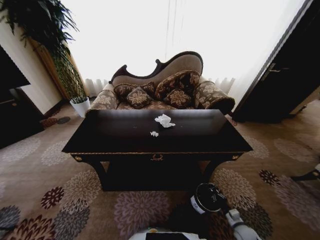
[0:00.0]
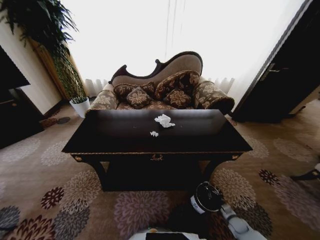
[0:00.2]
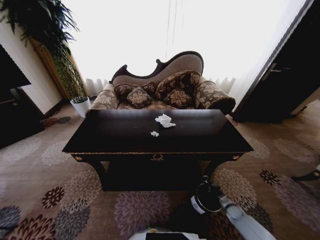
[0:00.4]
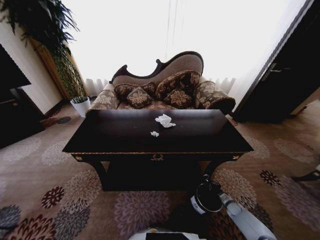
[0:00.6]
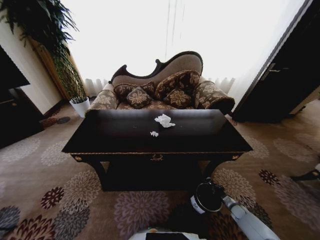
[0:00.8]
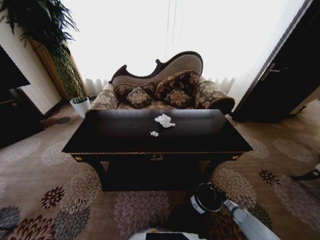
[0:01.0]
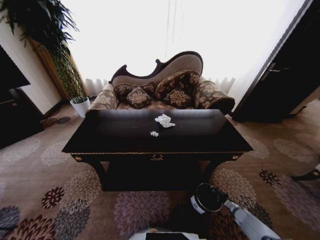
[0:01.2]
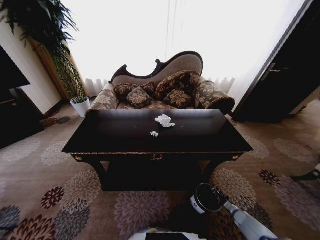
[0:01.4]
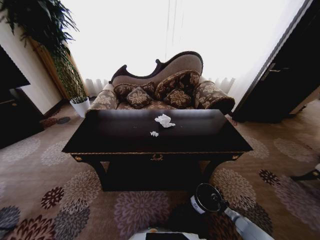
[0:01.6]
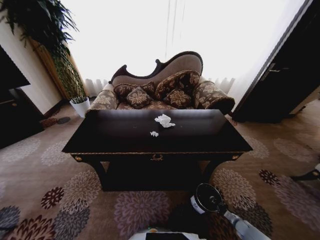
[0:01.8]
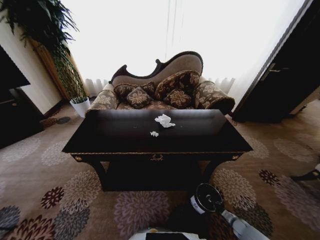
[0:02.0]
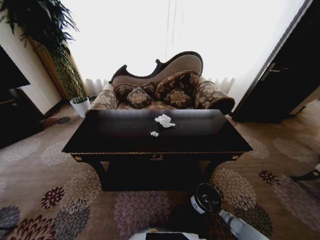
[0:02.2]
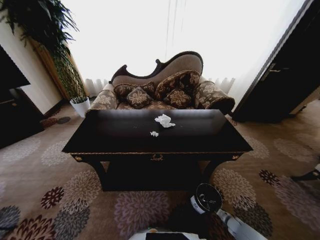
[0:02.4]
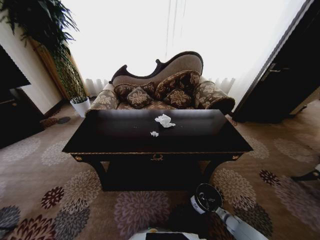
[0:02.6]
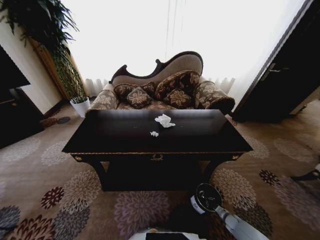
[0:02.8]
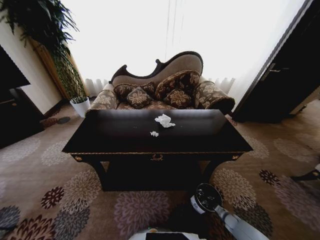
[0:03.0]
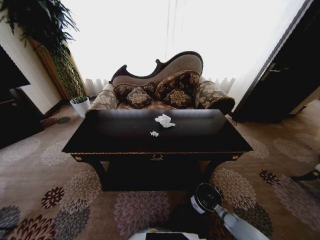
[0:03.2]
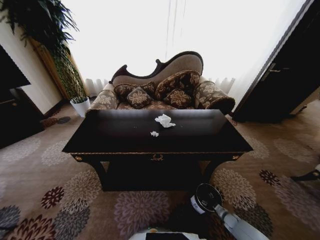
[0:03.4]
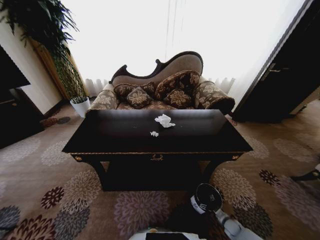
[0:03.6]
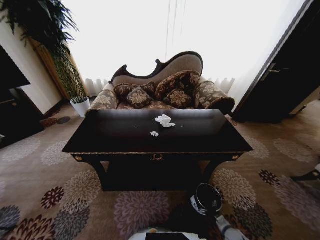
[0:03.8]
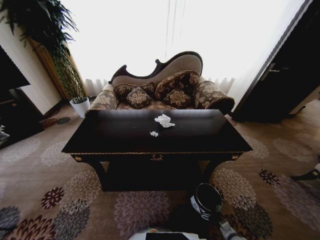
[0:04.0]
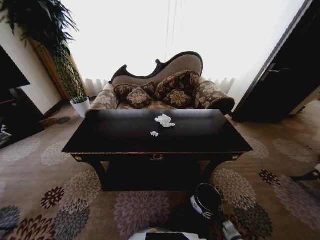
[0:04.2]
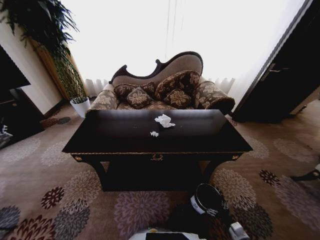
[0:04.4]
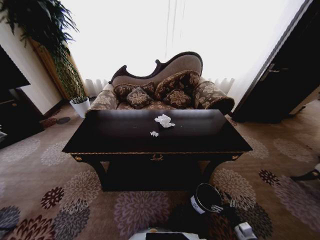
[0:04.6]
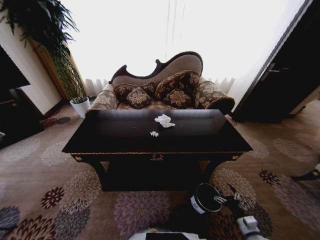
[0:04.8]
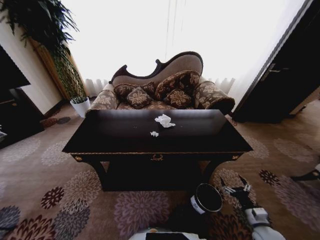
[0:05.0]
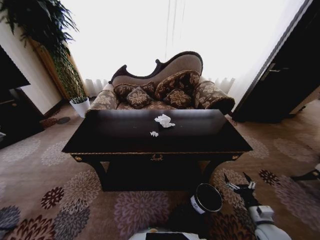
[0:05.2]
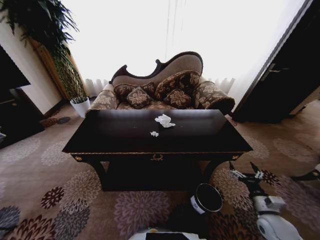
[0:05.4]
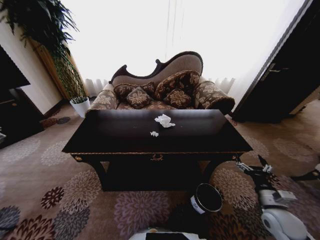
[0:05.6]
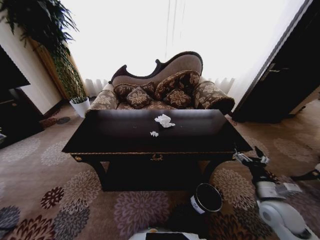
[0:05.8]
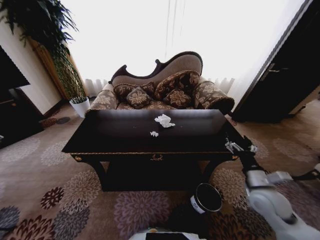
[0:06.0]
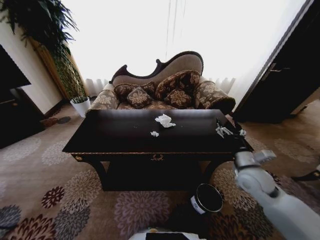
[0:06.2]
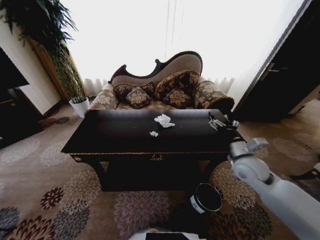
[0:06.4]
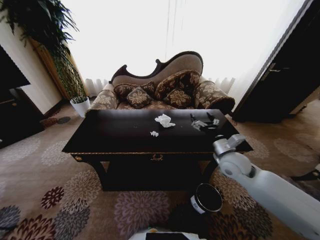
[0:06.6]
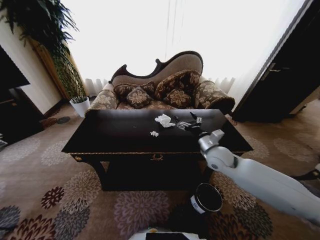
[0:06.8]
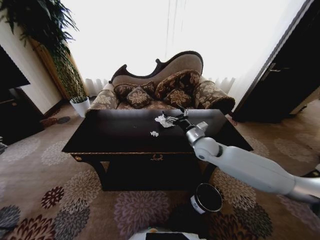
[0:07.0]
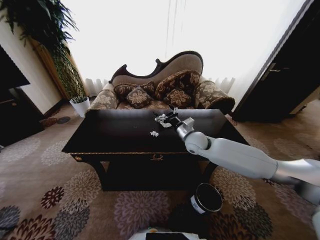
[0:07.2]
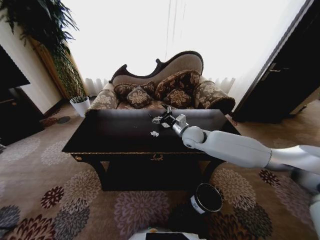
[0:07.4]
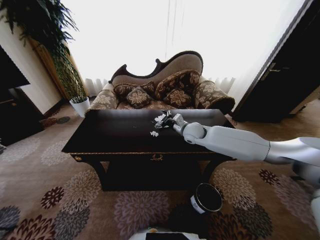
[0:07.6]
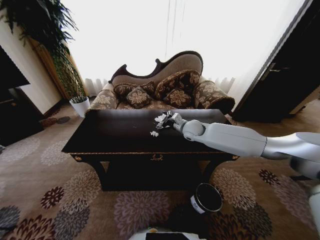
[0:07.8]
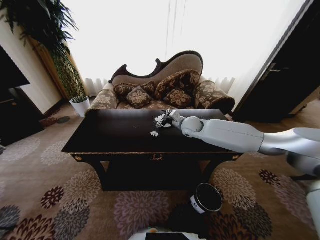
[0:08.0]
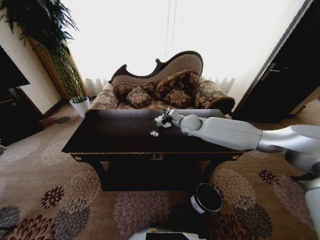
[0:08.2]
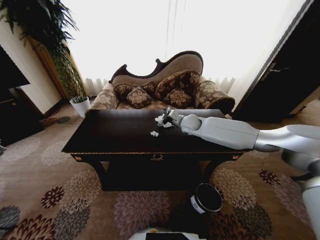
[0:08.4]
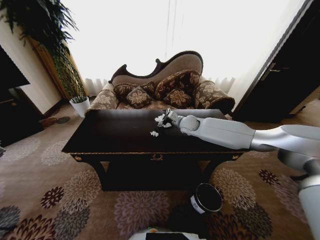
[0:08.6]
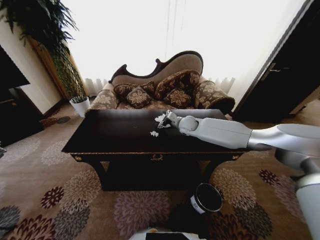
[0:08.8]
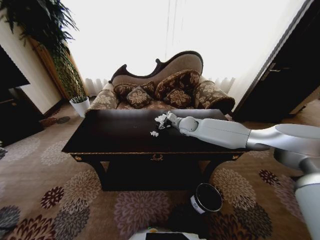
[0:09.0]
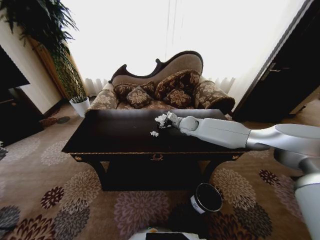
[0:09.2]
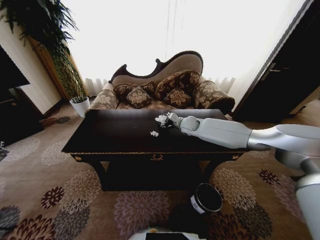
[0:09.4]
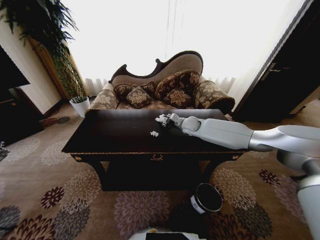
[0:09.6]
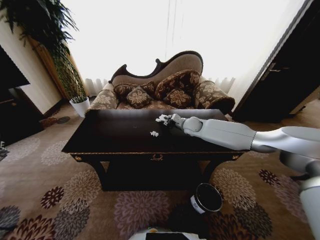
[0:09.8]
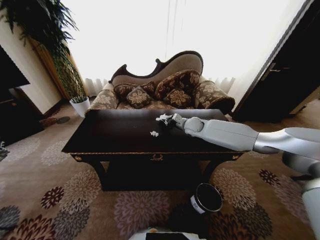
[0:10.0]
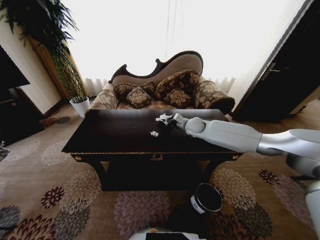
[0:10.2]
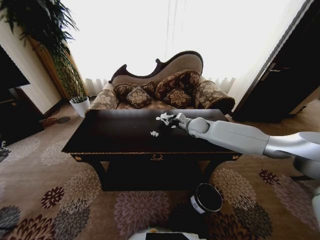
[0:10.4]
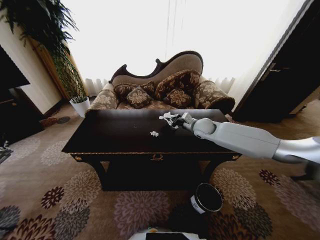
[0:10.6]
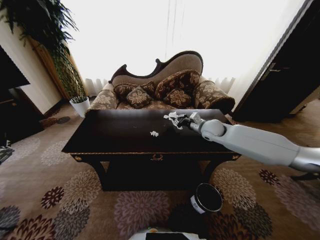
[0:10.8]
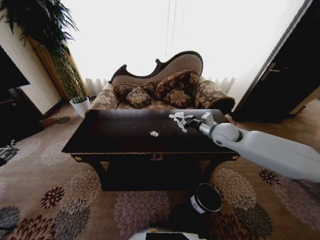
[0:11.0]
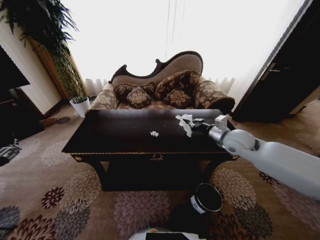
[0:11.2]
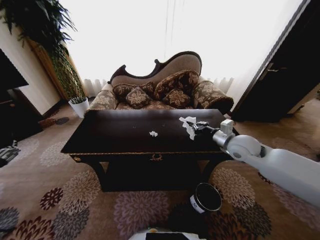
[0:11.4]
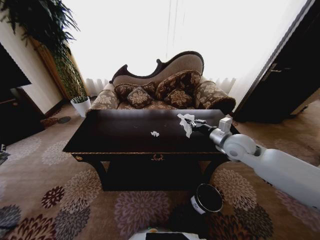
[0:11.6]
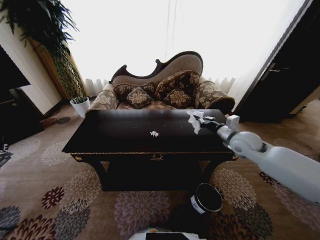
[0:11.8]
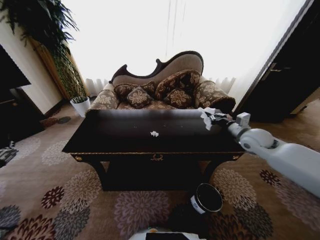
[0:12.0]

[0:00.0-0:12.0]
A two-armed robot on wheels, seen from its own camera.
Task of the whole recording: Move to the front of the table and place the trash on the table into the trash bin.
0:00.0 to 0:01.6: The right gripper travels downward and to the right by roughly 10 cm.
0:01.6 to 0:03.0: The right gripper travels to the left by approximately 5 cm.
0:03.0 to 0:04.4: The right gripper goes approximately 20 cm backward, upward and to the left, and opens up.
0:04.4 to 0:06.0: The right gripper shifts approximately 30 cm upward and forward.
0:06.0 to 0:07.6: The right gripper travels forward and to the left by some 35 cm.
0:07.6 to 0:09.0: The right gripper travels forward by approximately 5 cm.
0:09.0 to 0:10.4: The right gripper closes its fingers.
0:10.4 to 0:12.0: The right gripper moves to the right and backward, roughly 20 cm.

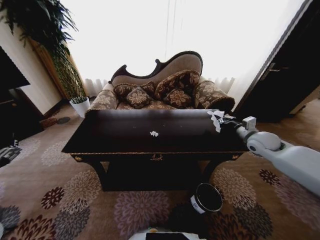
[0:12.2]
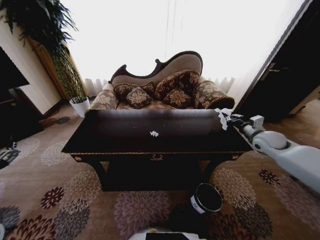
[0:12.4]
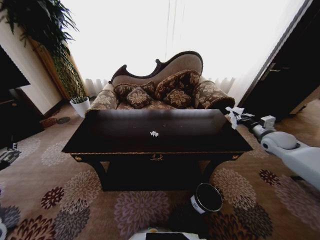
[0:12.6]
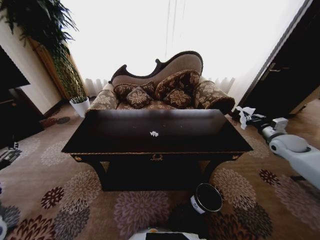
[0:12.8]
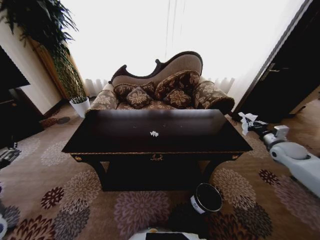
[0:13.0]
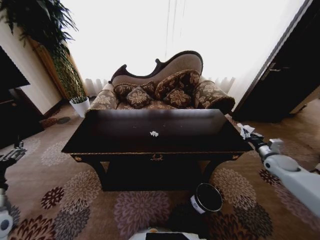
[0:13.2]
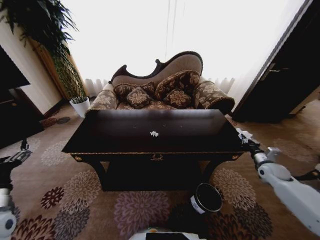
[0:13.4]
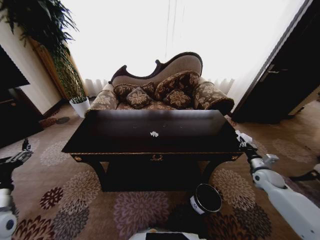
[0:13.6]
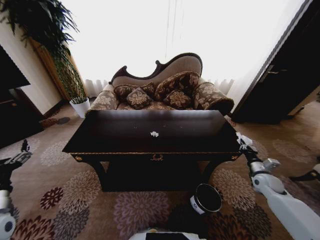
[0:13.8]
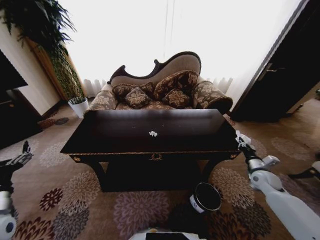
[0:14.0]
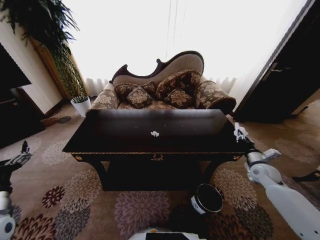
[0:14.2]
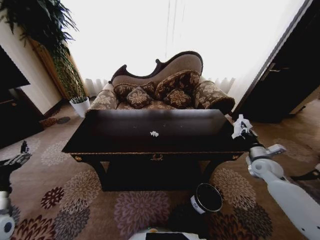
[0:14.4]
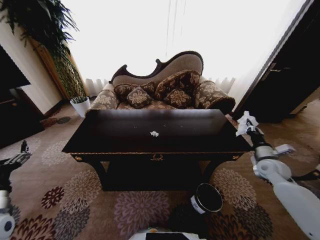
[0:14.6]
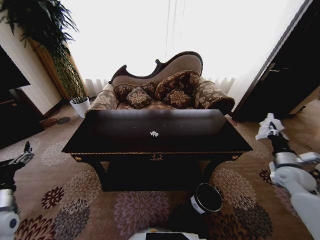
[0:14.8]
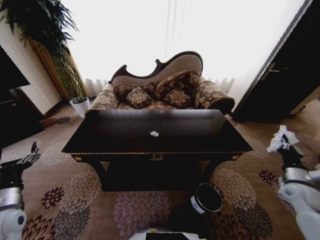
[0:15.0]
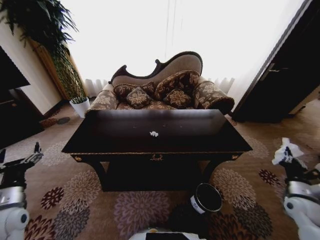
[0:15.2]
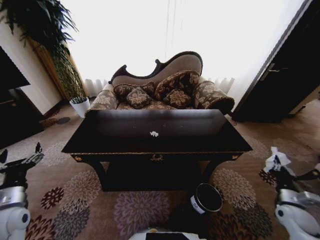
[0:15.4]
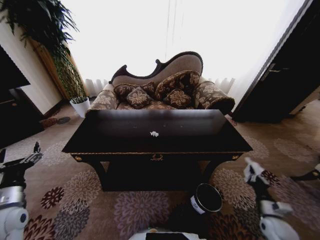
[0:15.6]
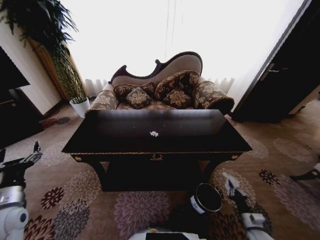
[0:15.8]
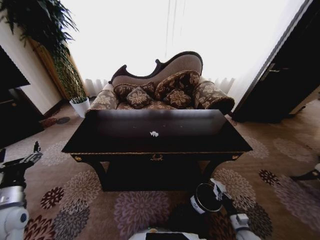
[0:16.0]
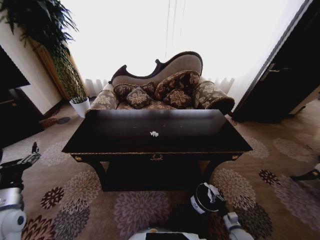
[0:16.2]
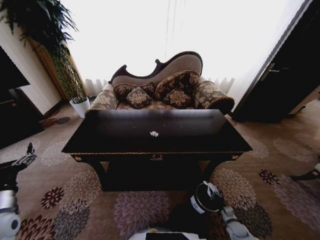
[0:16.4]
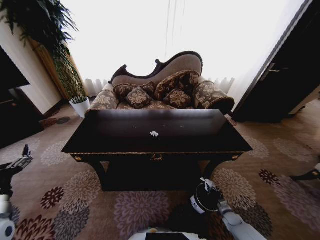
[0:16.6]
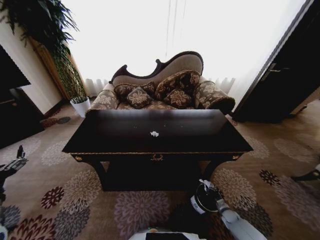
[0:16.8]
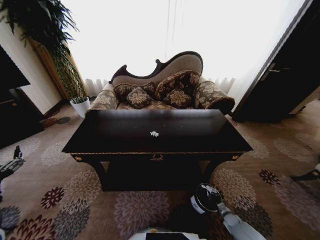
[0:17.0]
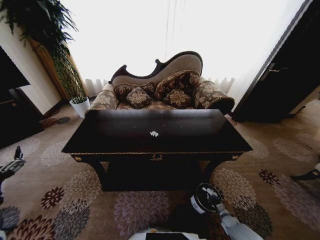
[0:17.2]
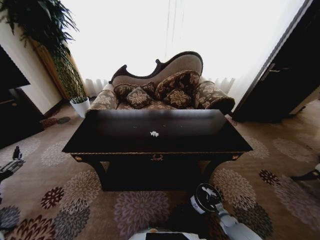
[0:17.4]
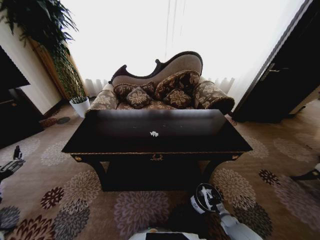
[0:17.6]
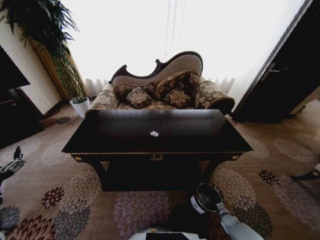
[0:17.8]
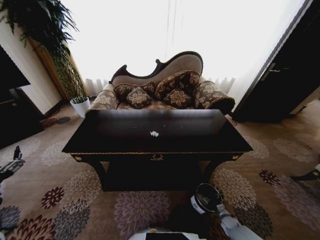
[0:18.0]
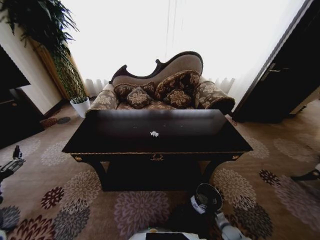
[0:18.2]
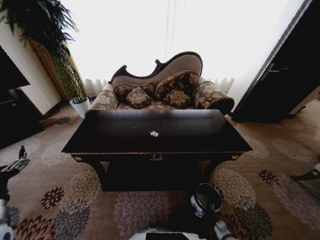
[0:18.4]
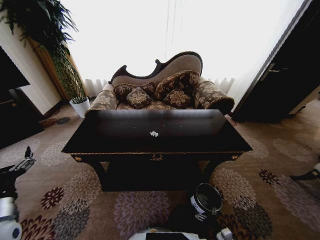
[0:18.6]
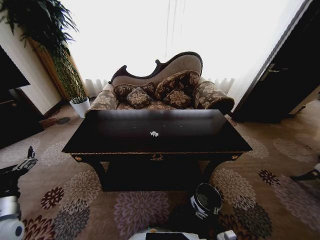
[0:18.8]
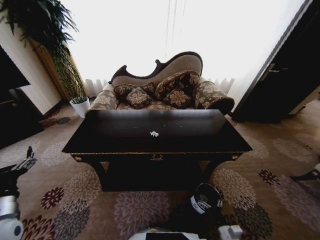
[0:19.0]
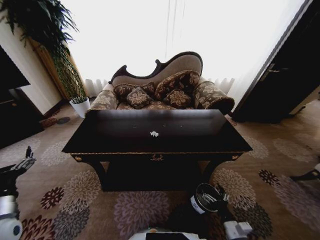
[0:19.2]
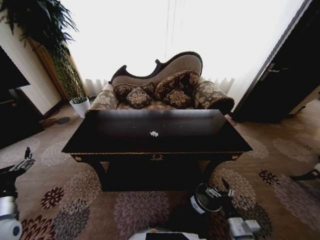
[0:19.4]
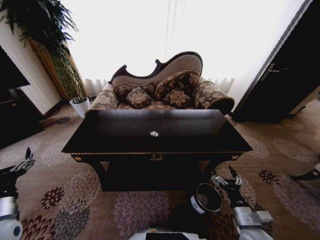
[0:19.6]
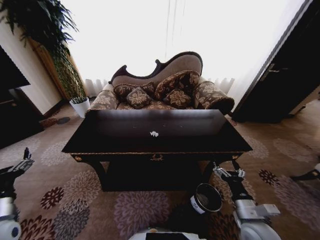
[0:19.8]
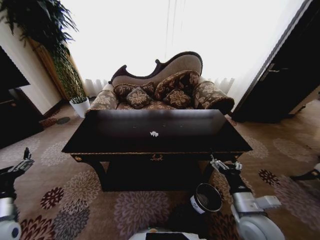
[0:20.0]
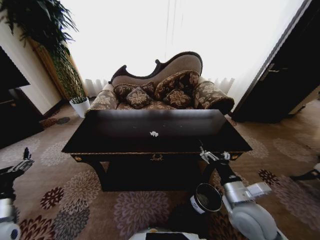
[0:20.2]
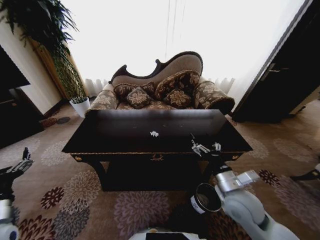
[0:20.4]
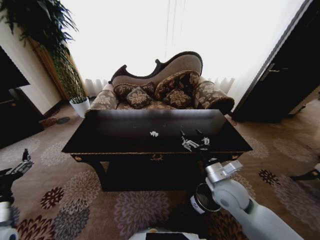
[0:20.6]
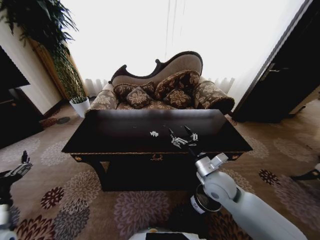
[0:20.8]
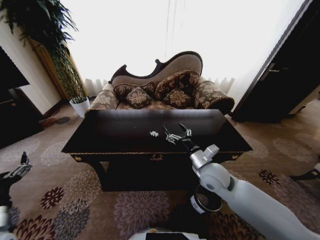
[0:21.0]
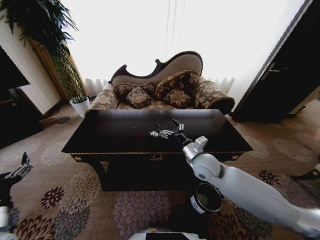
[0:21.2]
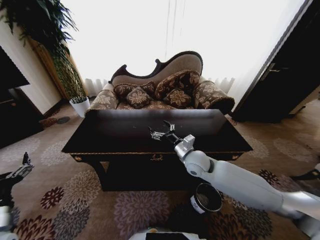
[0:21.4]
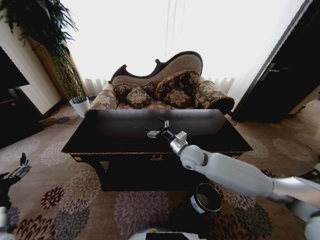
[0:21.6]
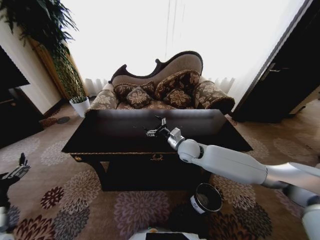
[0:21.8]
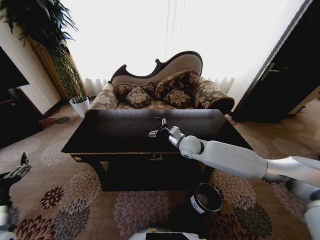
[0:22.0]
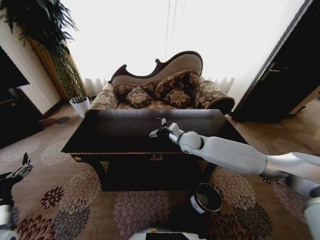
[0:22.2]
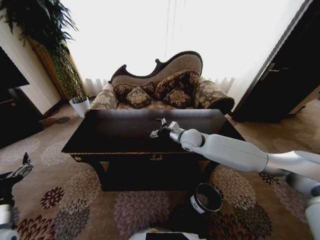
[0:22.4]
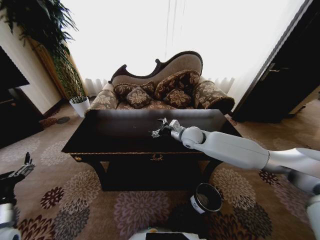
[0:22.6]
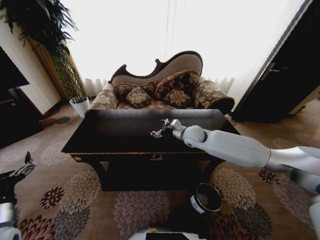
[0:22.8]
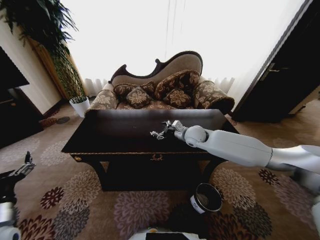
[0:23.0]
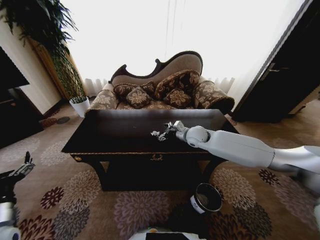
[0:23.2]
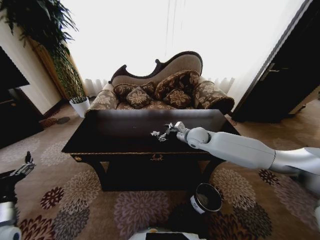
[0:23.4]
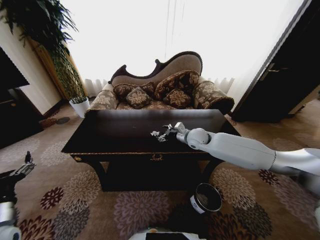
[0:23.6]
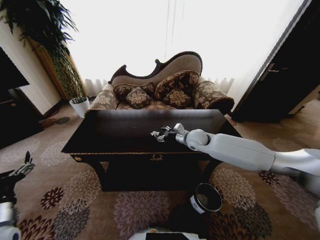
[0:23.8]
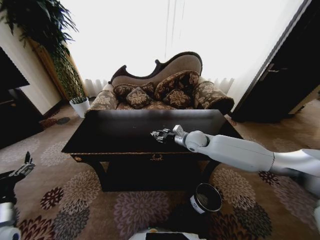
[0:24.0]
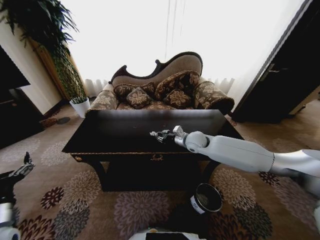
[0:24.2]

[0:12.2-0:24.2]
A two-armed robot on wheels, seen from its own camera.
Task of the whole recording: Move to the front of the table and place the trash on the table into the trash bin.
0:12.2 to 0:13.8: The right gripper heads downward, backward and to the right, covering about 20 cm.
0:13.8 to 0:15.2: The right gripper is displaced backward by about 10 cm.
0:15.2 to 0:16.6: The right gripper shifts about 30 cm downward.
0:16.6 to 0:18.2: The right gripper goes roughly 5 cm backward, and opens its fingers.
0:18.2 to 0:19.8: The right gripper is displaced upward by some 30 cm.
0:19.8 to 0:21.2: The right gripper travels forward, to the left and upward by approximately 25 cm.
0:21.2 to 0:22.6: The right gripper goes about 15 cm forward.
0:22.6 to 0:24.2: The right gripper closes its fingers.
